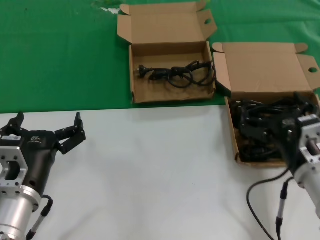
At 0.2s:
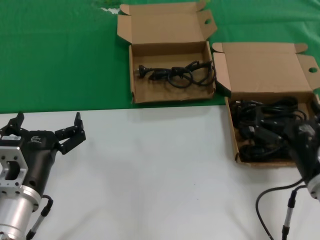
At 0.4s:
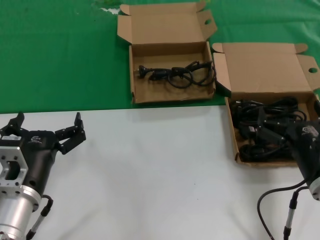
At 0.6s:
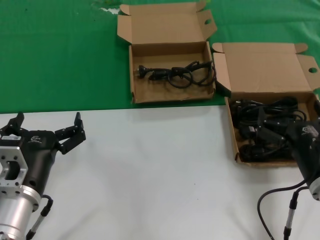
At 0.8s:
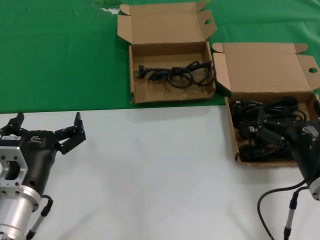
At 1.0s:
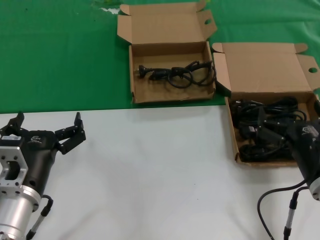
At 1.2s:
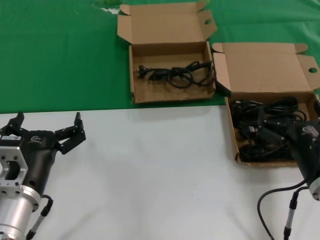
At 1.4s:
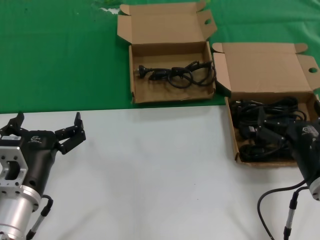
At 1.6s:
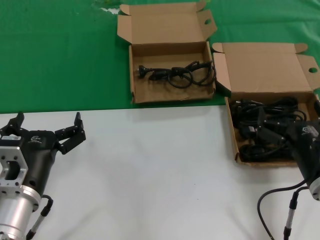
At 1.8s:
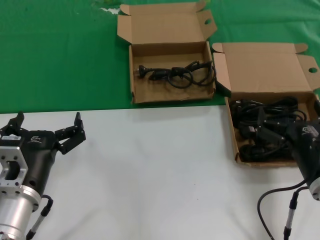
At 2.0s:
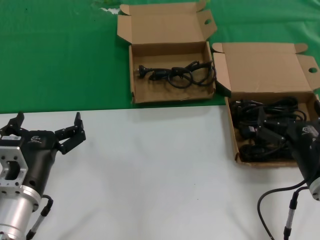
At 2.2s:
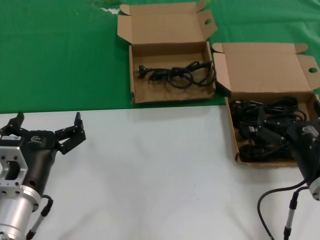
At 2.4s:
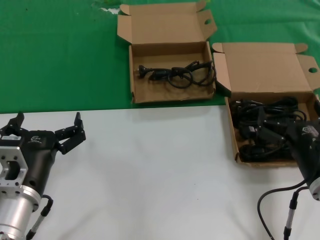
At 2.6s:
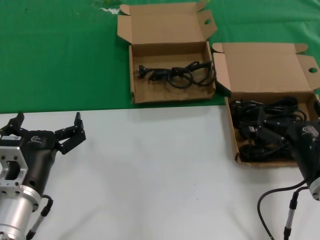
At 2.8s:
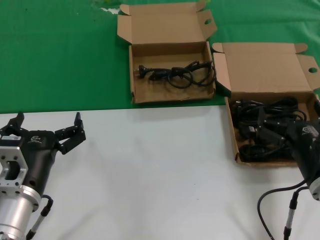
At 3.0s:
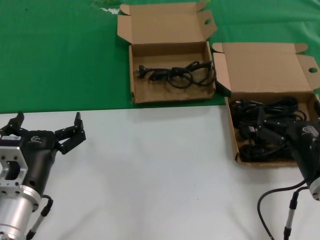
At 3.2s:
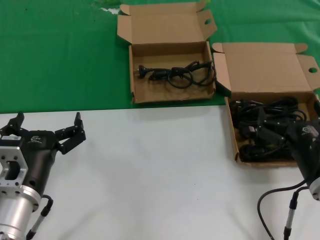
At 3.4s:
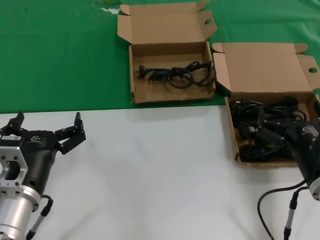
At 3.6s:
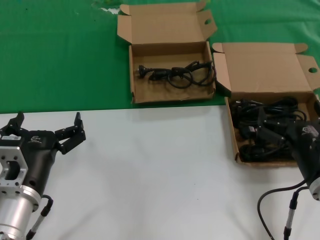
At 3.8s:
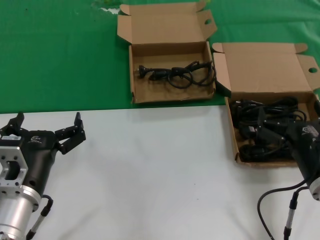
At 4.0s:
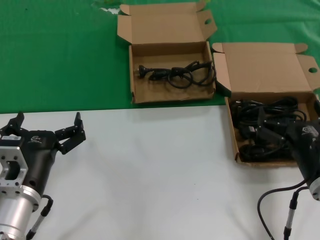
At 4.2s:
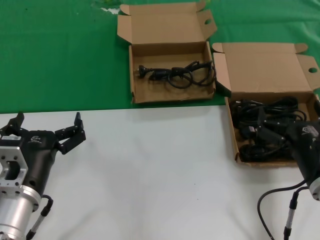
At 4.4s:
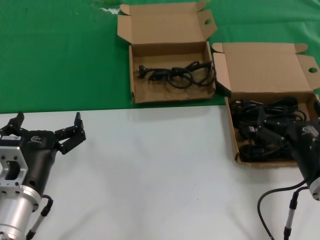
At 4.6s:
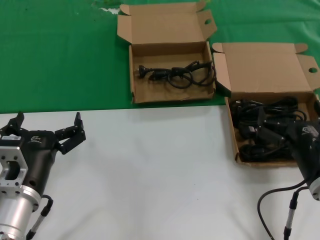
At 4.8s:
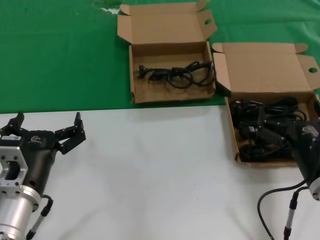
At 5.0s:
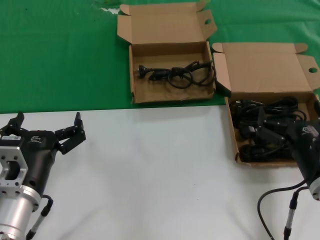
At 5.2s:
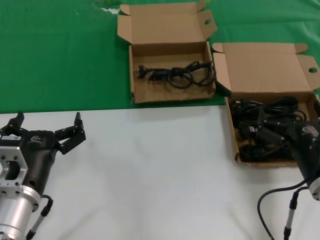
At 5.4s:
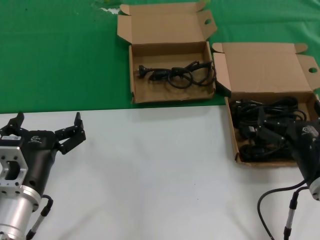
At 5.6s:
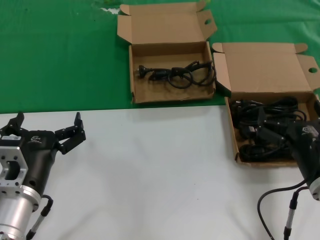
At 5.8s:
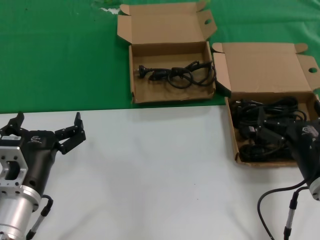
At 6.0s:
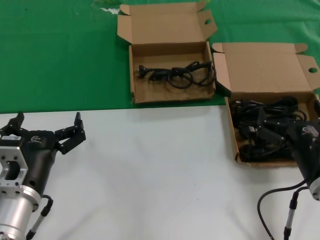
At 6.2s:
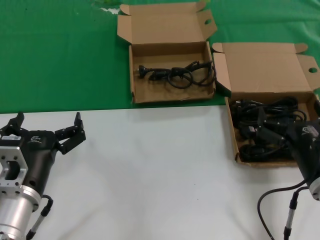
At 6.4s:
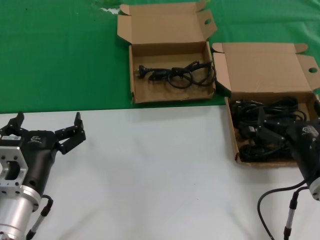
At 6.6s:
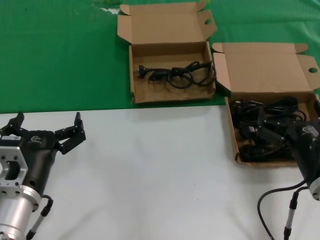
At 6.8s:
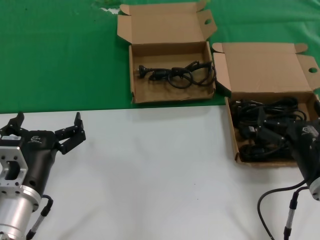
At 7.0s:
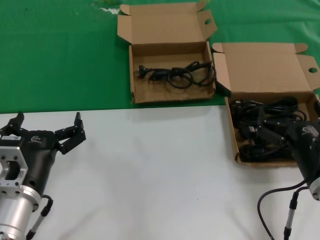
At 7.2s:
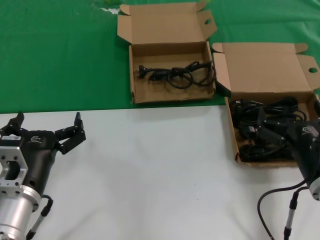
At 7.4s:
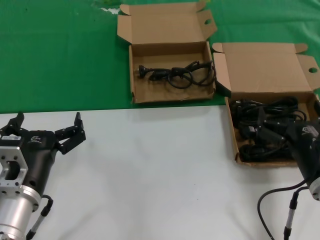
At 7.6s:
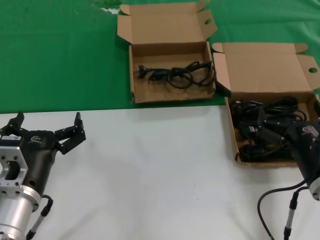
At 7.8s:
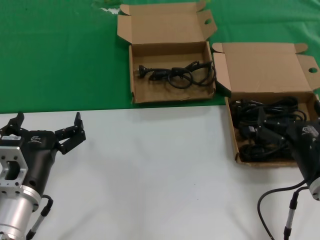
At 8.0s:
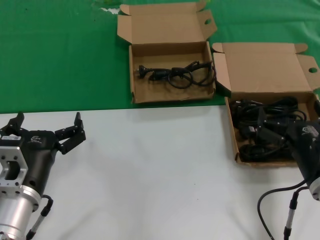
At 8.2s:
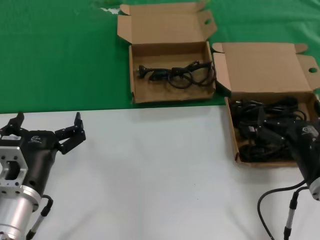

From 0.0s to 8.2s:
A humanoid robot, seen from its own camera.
Task of the whole recording: take the parts from the box containing them and put them into an empty box.
From 0.0s to 1.6s: The hands move only a little.
From 1.6s to 8.2s: Neither hand changes place.

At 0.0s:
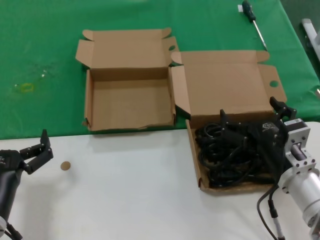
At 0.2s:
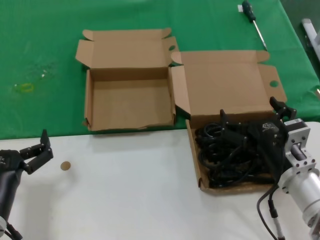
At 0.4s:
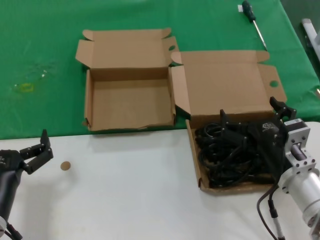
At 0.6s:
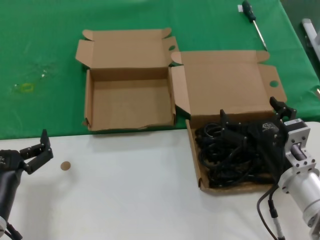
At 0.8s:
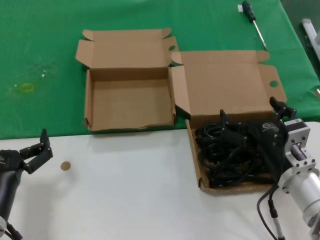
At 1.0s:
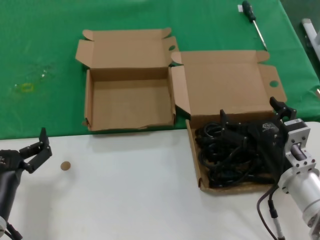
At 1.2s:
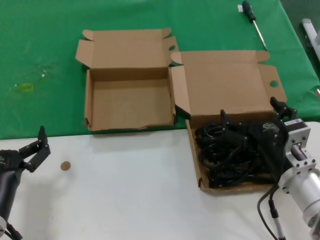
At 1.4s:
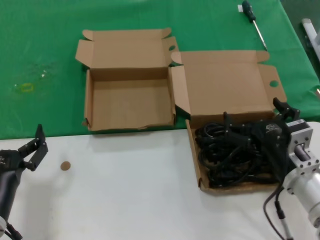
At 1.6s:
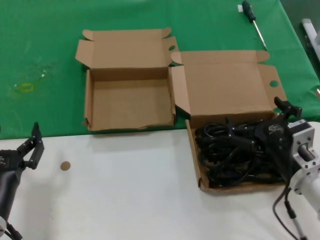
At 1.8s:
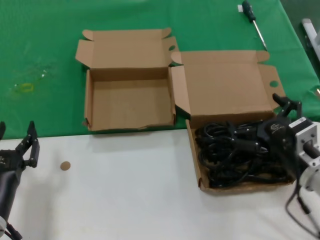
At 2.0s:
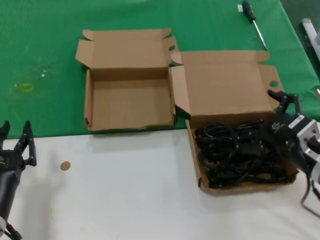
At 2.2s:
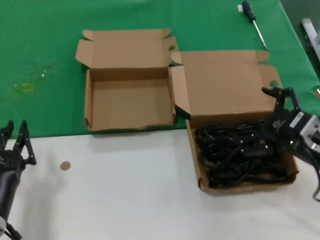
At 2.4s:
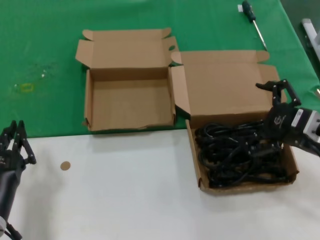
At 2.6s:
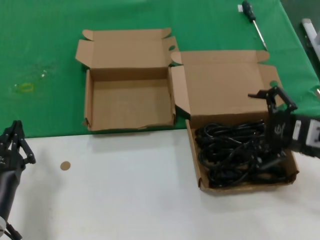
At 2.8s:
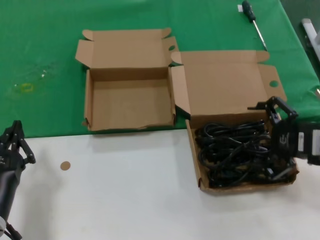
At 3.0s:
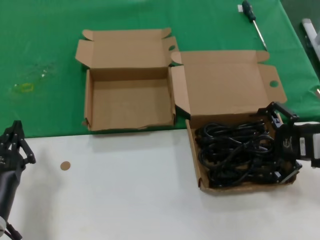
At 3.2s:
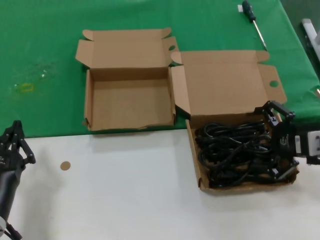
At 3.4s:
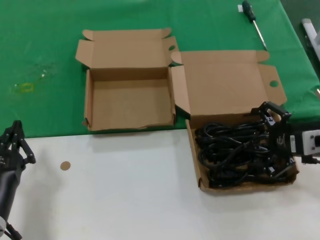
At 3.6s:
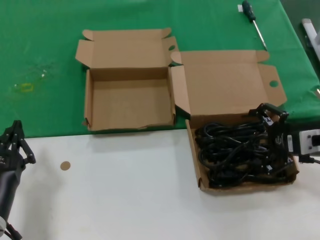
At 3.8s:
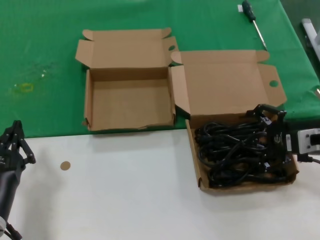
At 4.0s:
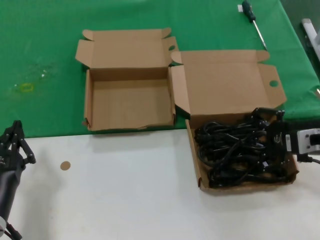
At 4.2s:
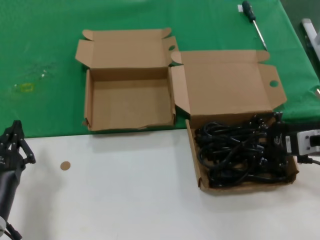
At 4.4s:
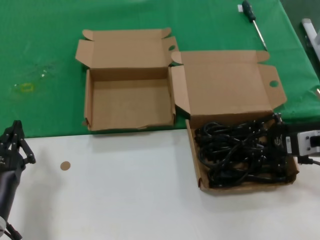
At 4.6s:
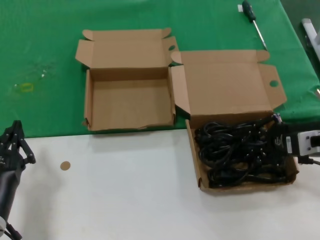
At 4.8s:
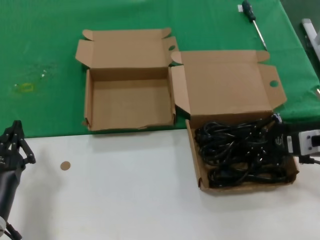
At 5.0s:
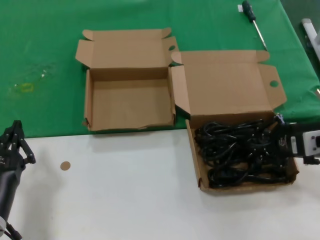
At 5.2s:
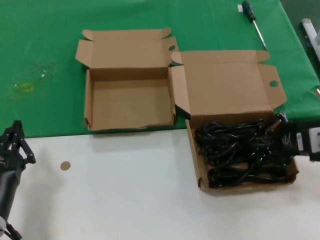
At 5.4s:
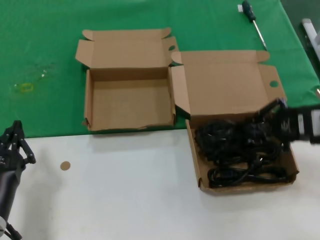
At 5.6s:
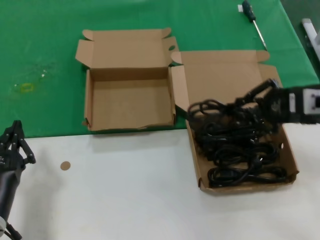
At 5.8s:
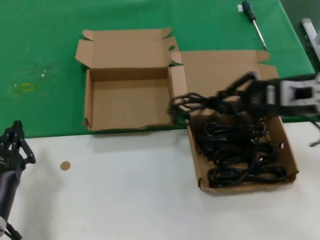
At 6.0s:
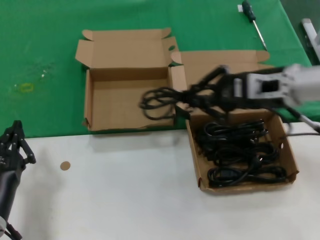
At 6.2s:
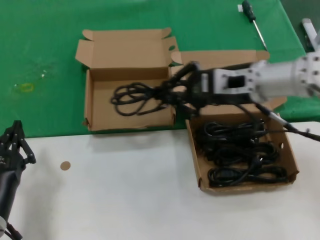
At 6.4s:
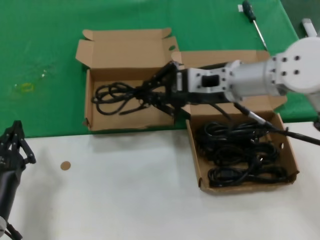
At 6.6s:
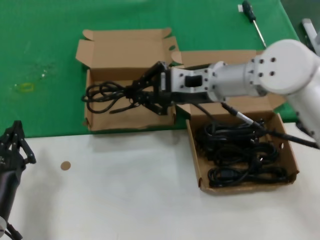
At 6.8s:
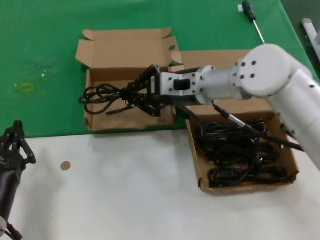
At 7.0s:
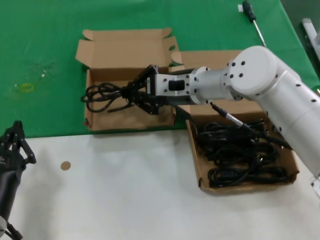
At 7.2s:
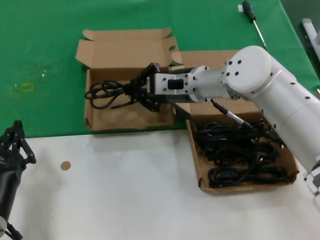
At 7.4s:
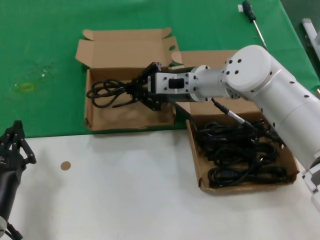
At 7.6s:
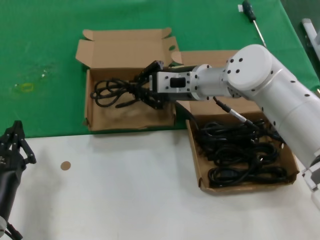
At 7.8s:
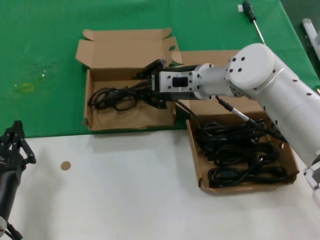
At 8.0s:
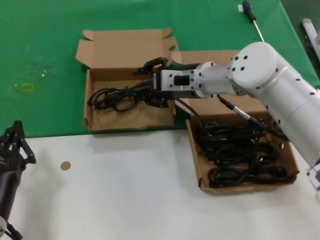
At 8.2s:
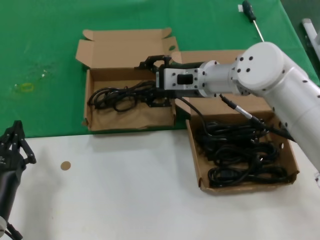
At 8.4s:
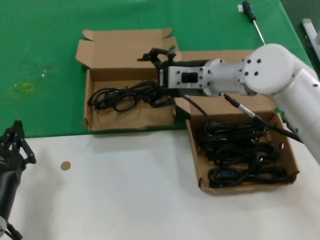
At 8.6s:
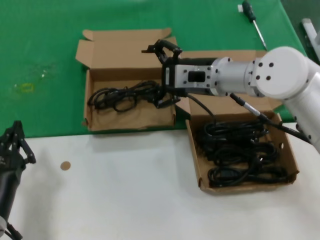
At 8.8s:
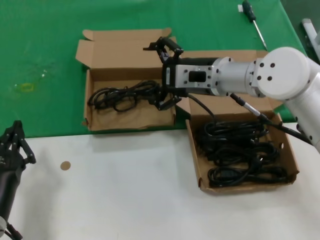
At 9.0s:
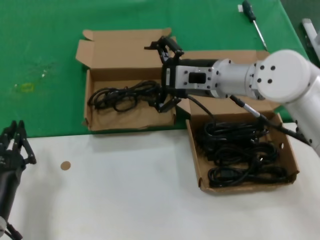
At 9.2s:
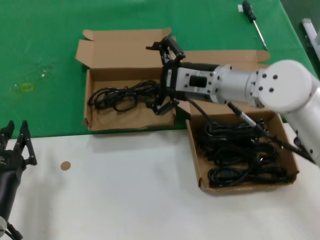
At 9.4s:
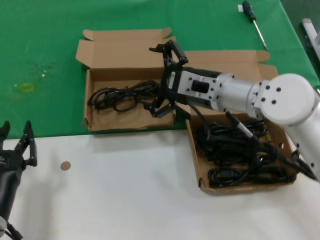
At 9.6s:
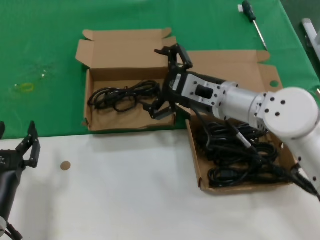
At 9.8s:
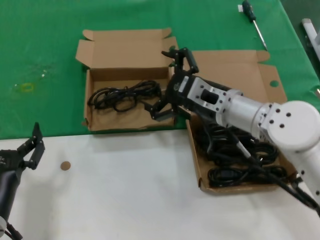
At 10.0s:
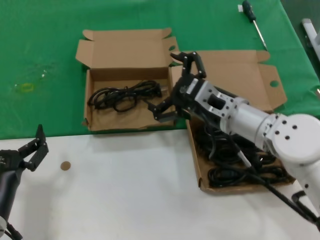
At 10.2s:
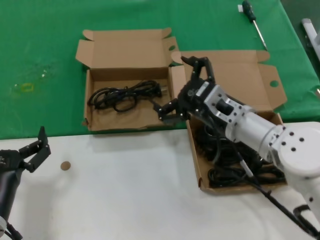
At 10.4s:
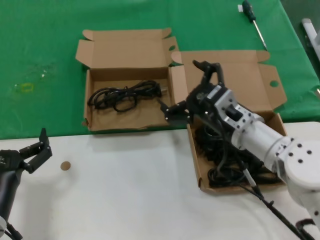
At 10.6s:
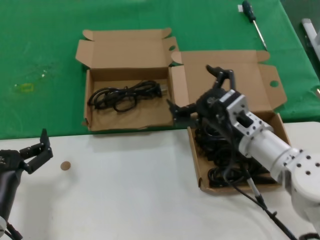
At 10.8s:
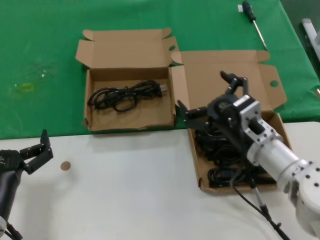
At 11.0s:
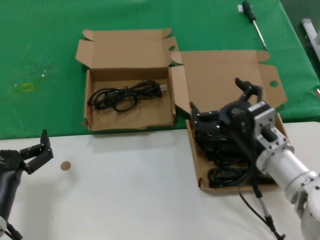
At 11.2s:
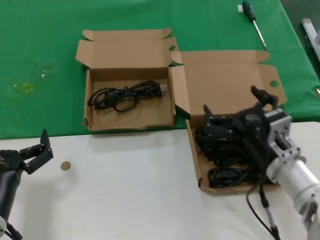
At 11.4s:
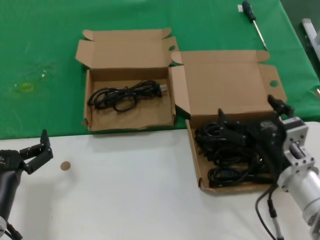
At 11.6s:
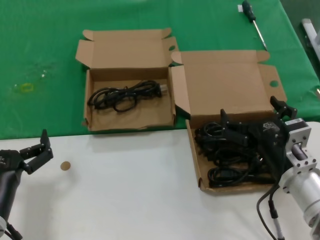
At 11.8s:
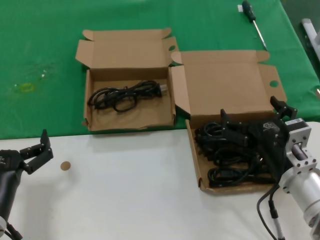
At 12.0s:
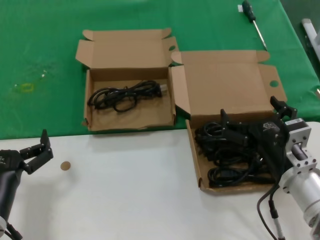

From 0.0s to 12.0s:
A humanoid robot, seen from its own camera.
Task of the whole recording: take the parts from the box containing them and put them into an empty box.
Step, from 0.0s to 4.8s: Grasp the data cable.
Step, from 5.0s to 8.2s: Place the data cable in the another box.
From 0.0s to 1.6s: The hands move only a little.
From 1.6s to 3.0s: The right hand shifts about 15 cm to the right and upward.
From 3.0s to 4.4s: The hands stay close to where they were, moving slightly.
From 4.4s to 6.0s: The right hand travels to the left, upward and forward by about 15 cm.
From 6.0s to 7.6s: The right hand goes roughly 20 cm to the left and forward.
From 7.6s to 9.0s: The right hand changes place by roughly 5 cm.
From 9.0s to 10.4s: The right hand is displaced downward and backward by approximately 15 cm.
From 10.4s to 12.0s: The right hand is displaced backward, downward and to the right by some 10 cm.

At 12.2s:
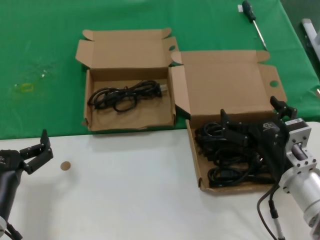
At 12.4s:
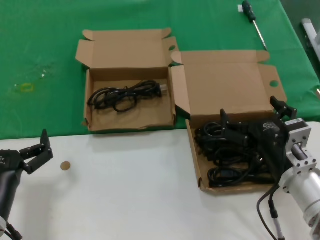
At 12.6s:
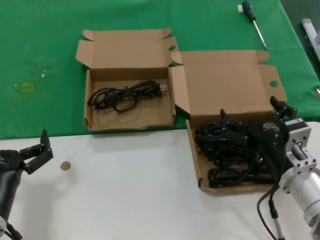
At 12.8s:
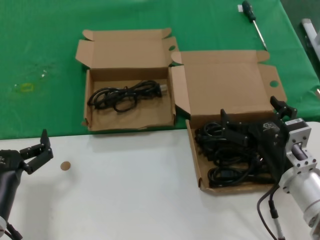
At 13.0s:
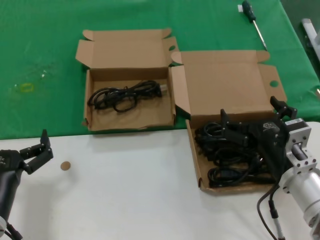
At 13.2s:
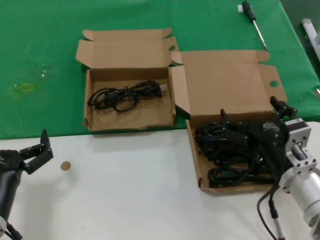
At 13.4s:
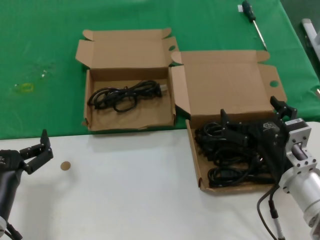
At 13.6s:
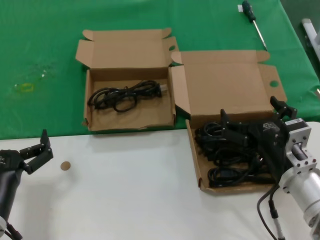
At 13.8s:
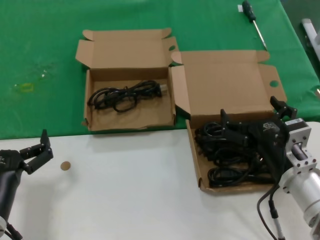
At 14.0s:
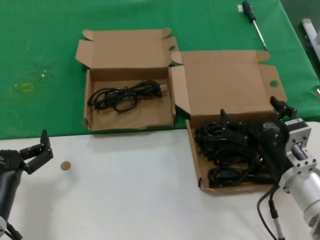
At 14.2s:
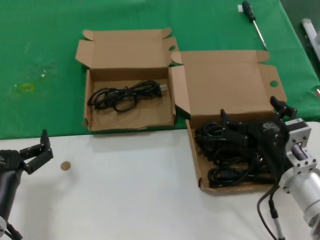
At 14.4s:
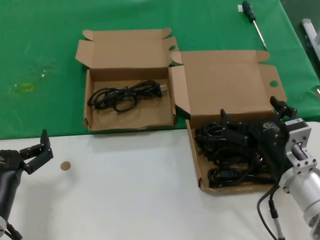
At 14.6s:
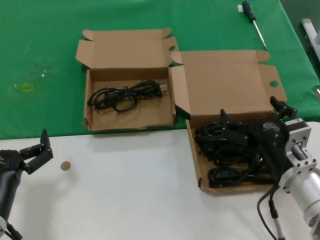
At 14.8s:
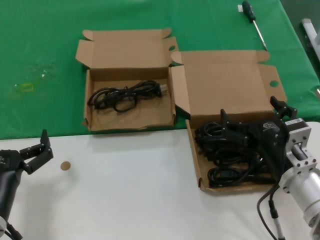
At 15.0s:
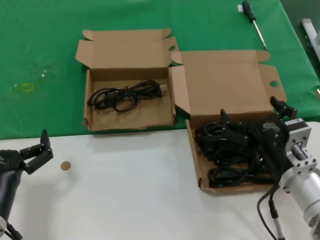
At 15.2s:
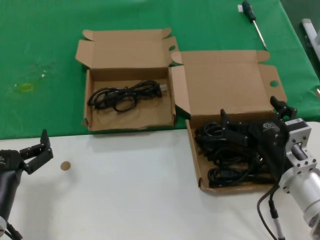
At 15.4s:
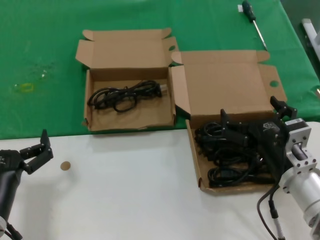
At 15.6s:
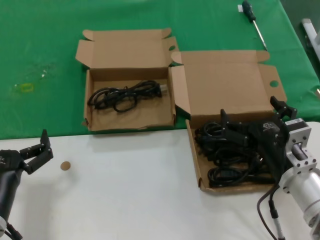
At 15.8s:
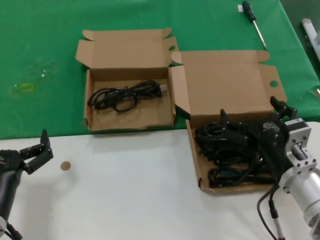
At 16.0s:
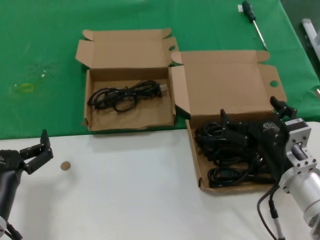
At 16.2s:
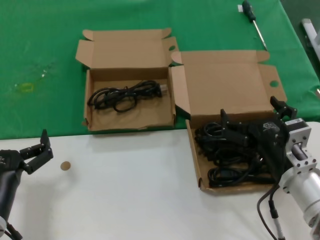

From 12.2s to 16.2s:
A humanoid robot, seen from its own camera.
Task of the whole recording: take the parts from the box containing them and put them into an empty box.
From 12.2s to 16.2s: Both hands stay about where they are.
